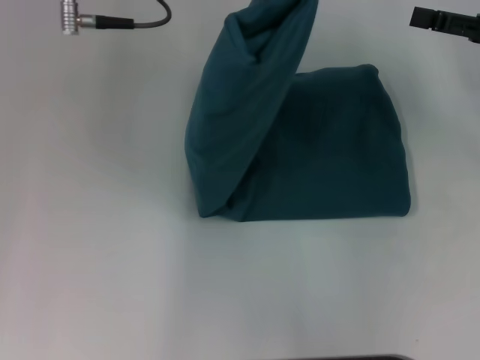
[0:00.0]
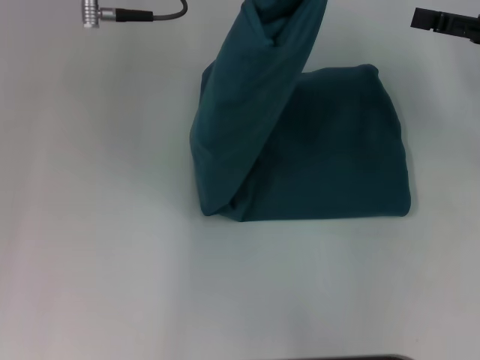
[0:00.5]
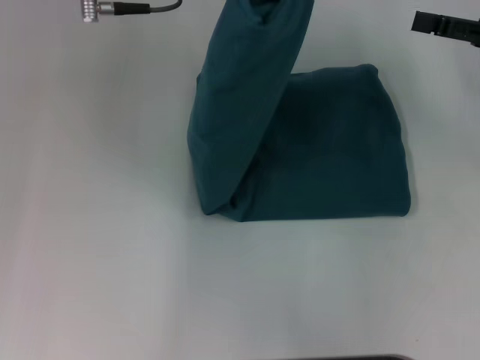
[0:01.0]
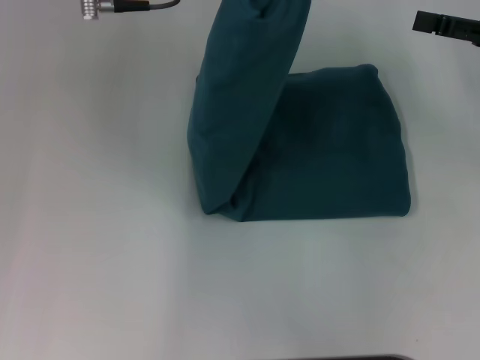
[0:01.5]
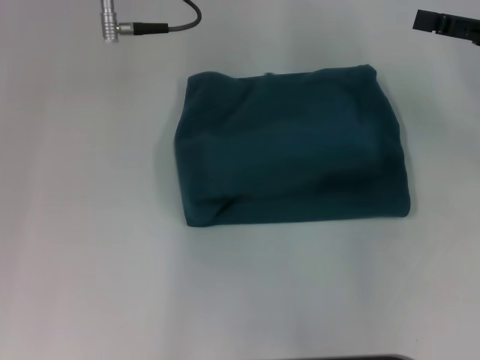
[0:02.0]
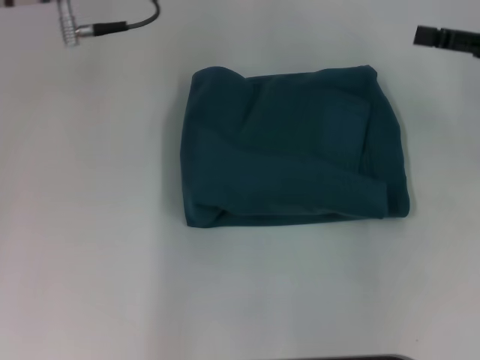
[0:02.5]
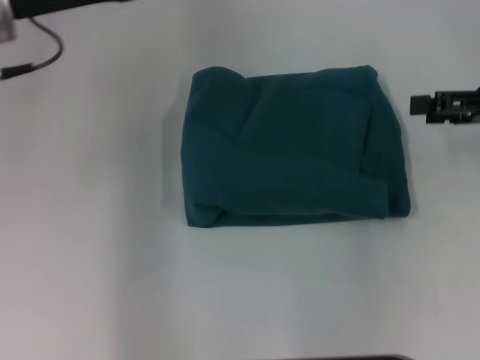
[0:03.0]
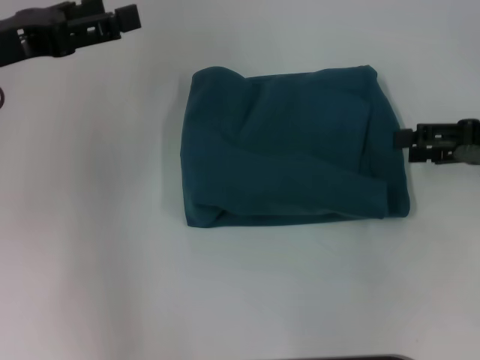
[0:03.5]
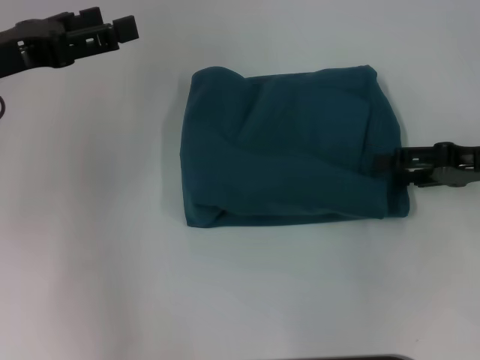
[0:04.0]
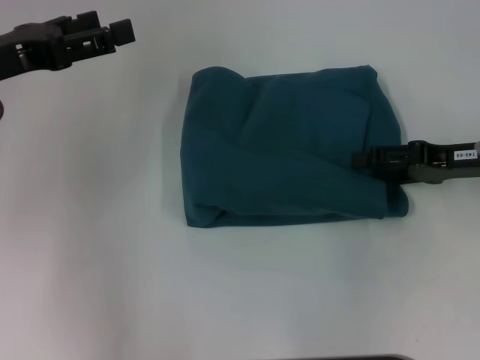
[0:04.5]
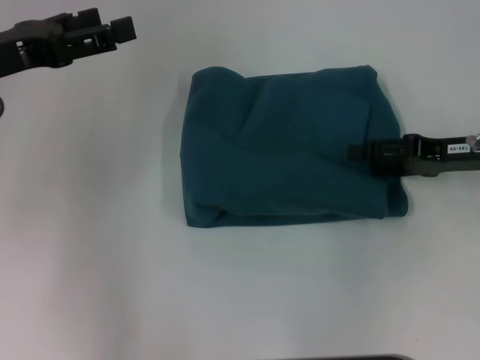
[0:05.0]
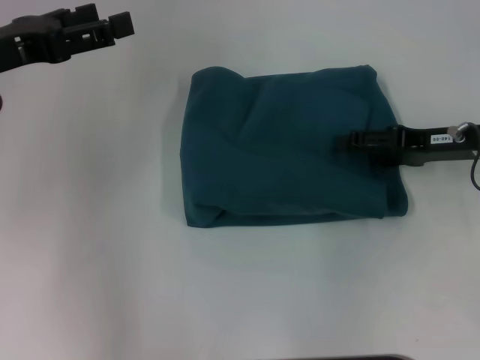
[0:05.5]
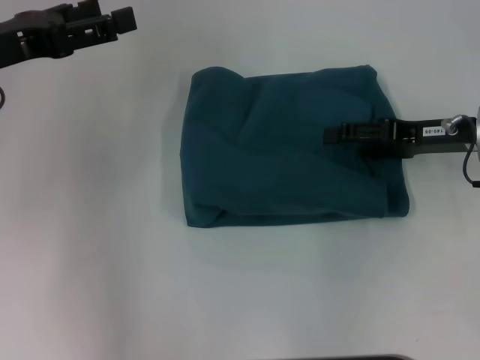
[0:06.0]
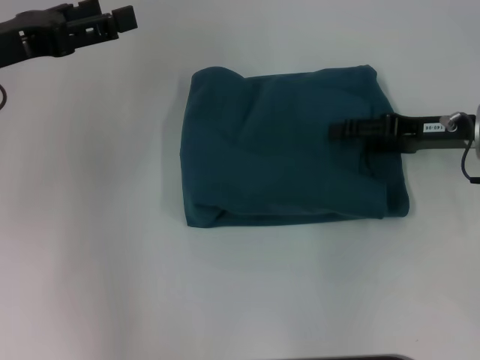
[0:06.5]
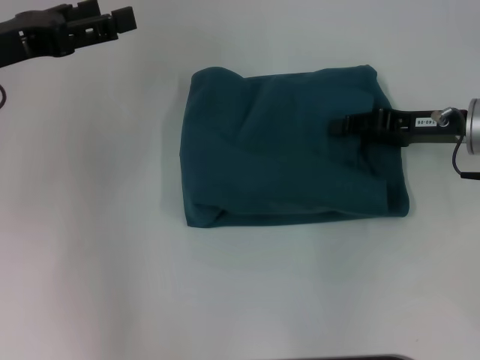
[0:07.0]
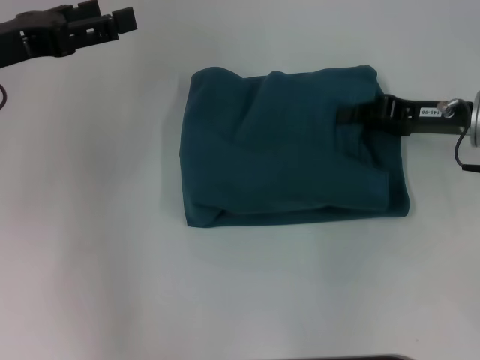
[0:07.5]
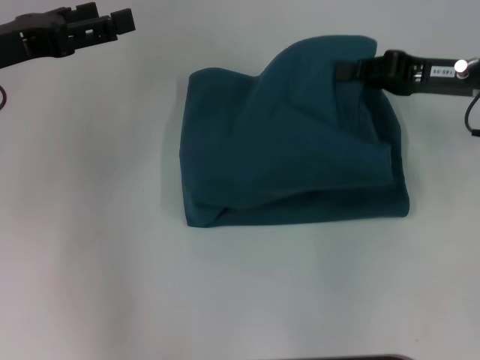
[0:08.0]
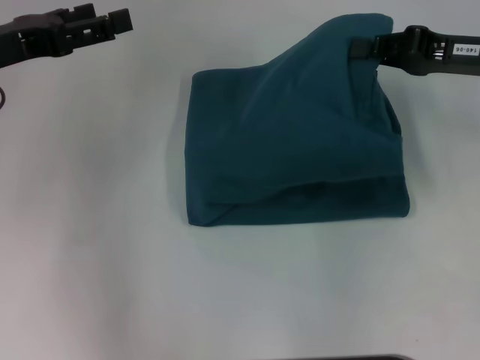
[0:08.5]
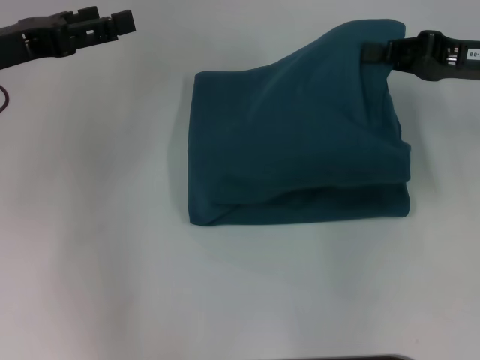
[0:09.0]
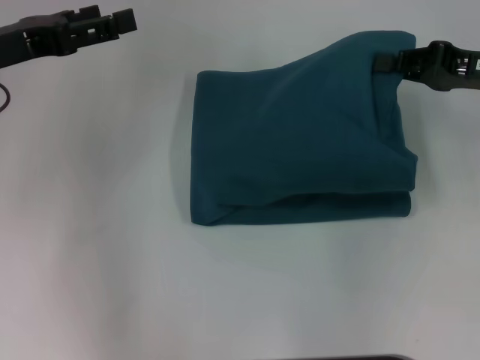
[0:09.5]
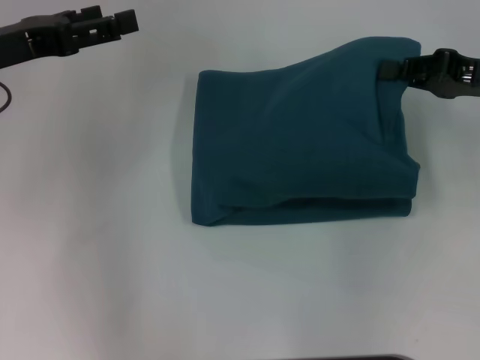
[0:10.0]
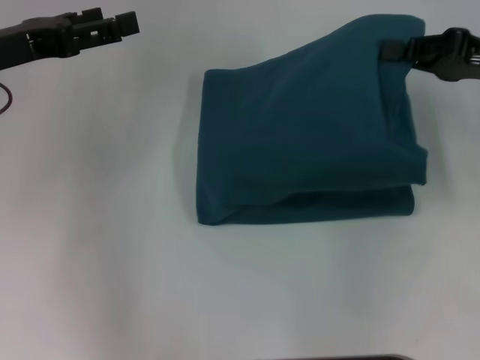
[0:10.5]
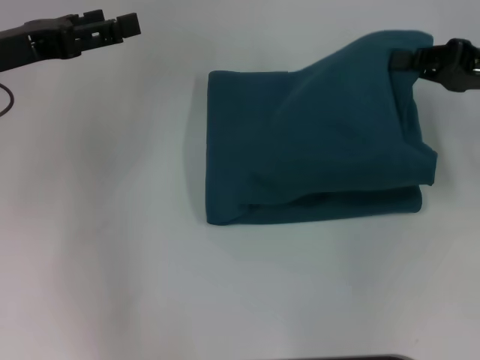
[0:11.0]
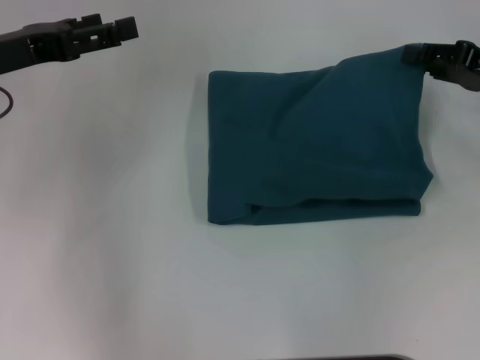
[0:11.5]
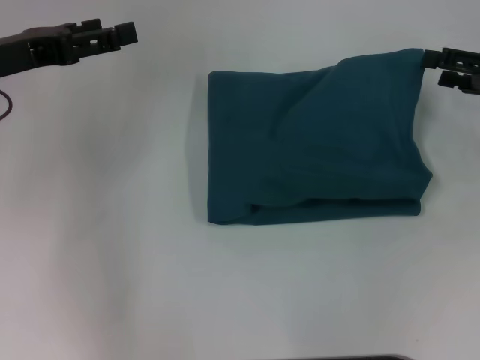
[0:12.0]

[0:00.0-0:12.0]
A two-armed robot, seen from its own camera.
Step, 0:00.0 to 0:02.0: Fold the clothes to the left.
0:00.0 to 0:02.0: The grippers make only small movements.
0:02.0 to 0:04.0: The right gripper moves downward, roughly 5 cm. Meanwhile the left gripper goes some 15 cm to the left and downward, and opens its fingers.
0:04.0 to 0:06.0: The right gripper ends up about 5 cm from where it was.
0:06.0 to 0:08.0: The right gripper closes.
0:08.0 to 0:10.0: The grippers make only small movements.
0:10.0 to 0:12.0: The right gripper opens up.

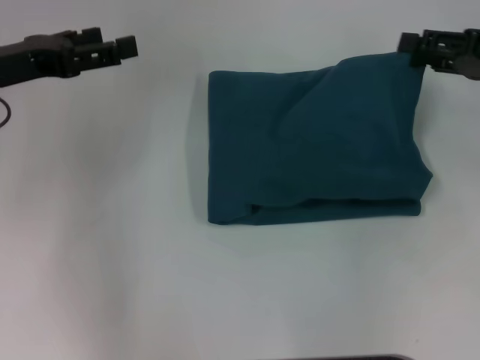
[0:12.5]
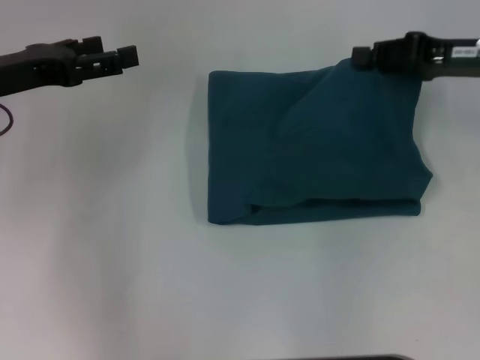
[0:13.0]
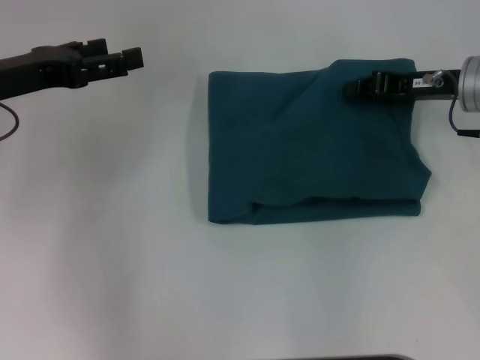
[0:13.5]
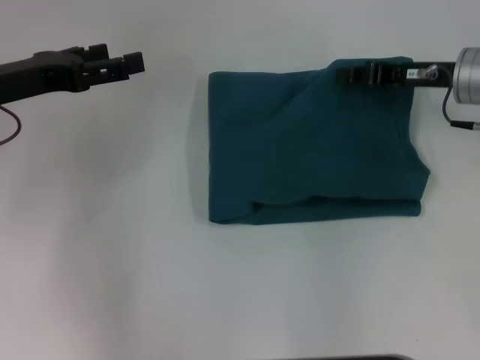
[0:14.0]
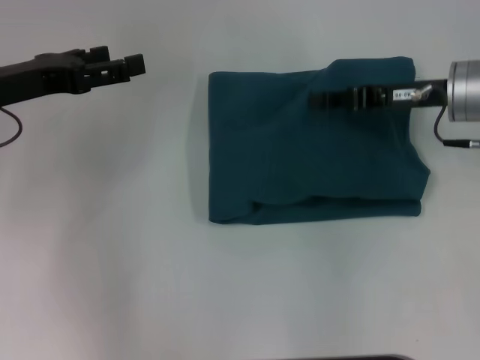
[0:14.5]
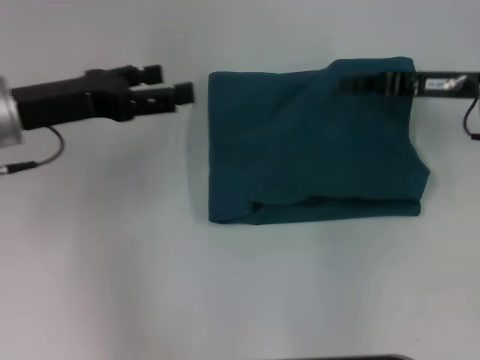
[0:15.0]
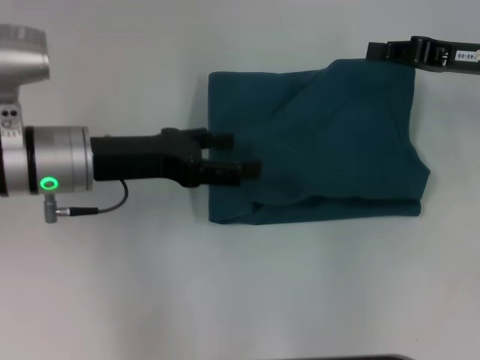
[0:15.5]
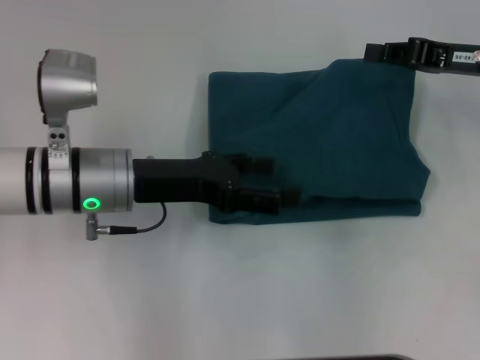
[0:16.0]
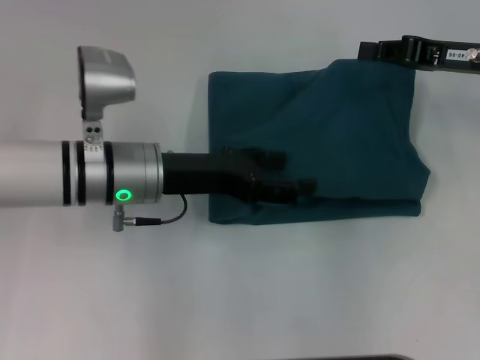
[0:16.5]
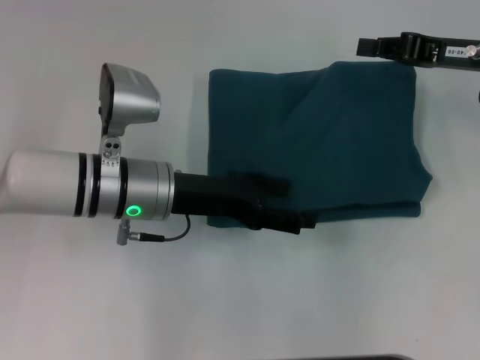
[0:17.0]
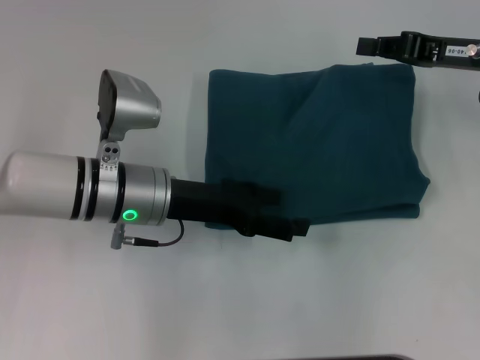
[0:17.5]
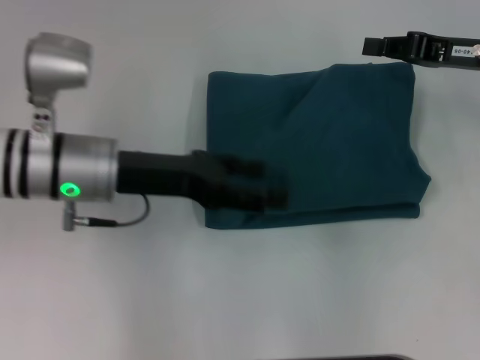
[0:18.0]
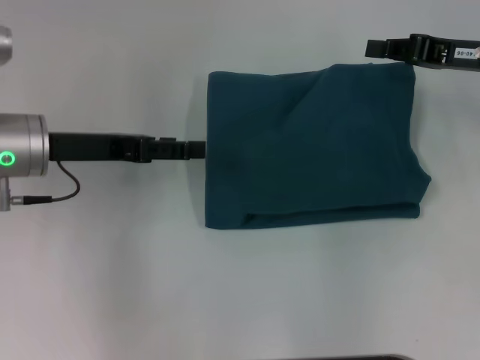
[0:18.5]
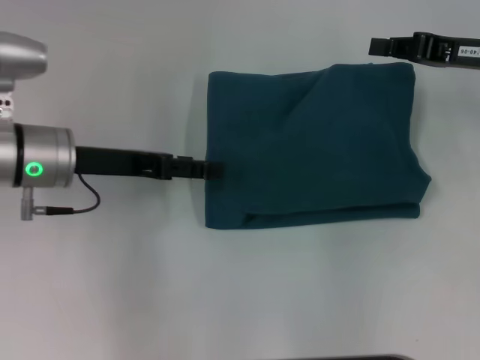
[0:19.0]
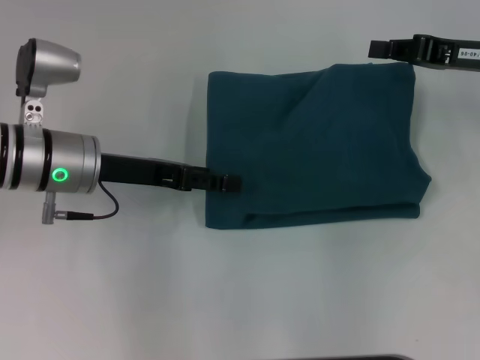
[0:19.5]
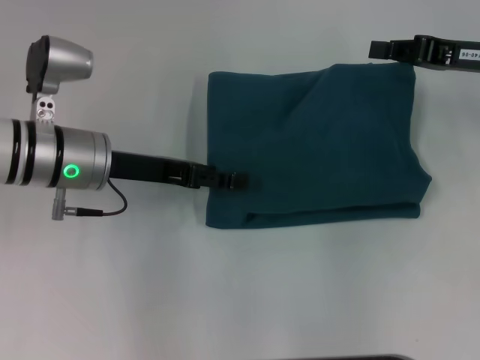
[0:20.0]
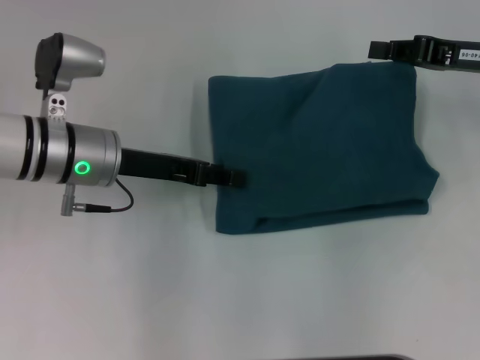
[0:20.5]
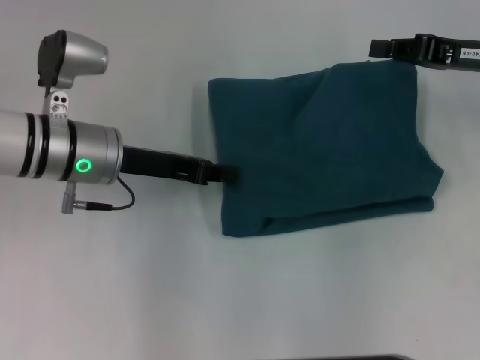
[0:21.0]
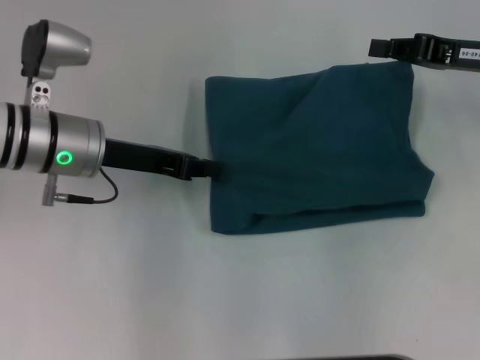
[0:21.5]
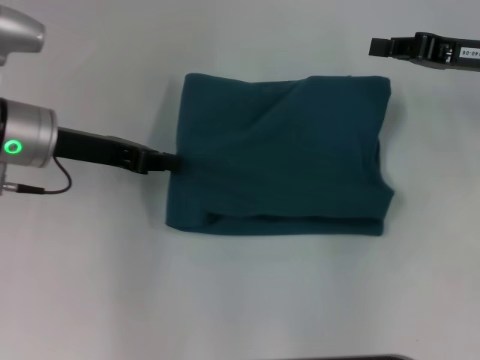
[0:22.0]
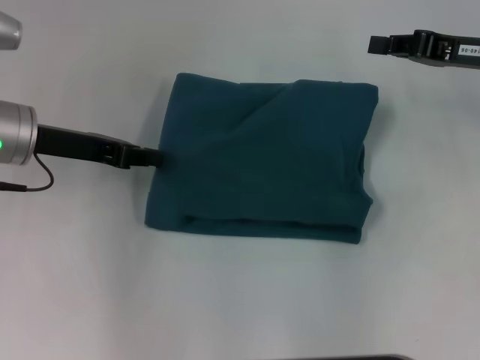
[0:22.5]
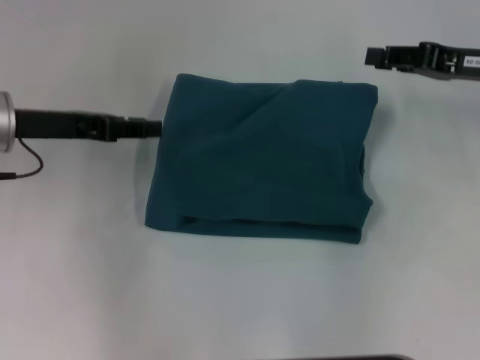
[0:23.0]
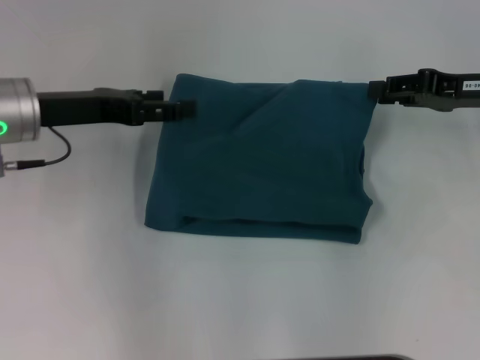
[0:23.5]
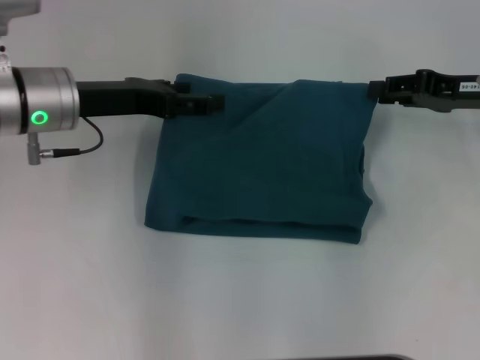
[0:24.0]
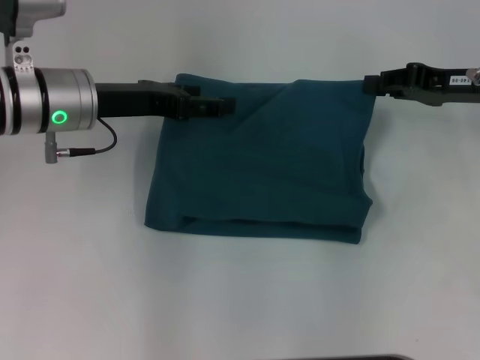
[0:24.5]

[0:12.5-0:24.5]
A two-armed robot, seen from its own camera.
0:12.5 to 0:14.5: The right gripper heads to the left, covering about 10 cm, and closes.
0:14.5 to 0:16.5: The left gripper travels to the right and downward by some 15 cm.
0:16.5 to 0:18.5: The left gripper shifts roughly 10 cm to the left.
0:18.5 to 0:20.5: The left gripper goes about 5 cm to the right.
0:20.5 to 0:22.5: The left gripper moves to the left, roughly 5 cm, and closes.
0:22.5 to 0:24.5: The left gripper shifts about 5 cm to the right, and opens its fingers.

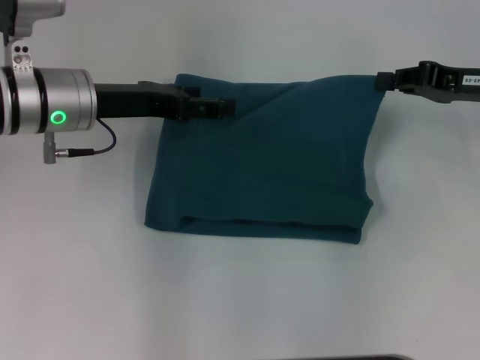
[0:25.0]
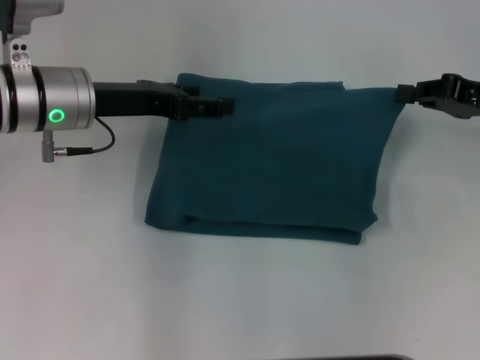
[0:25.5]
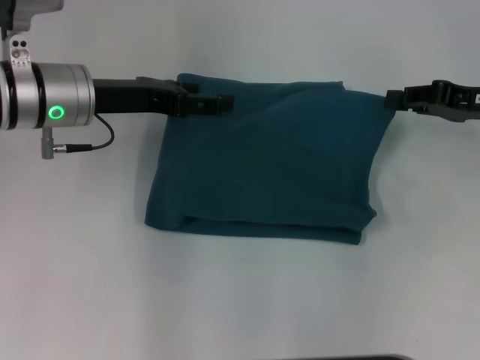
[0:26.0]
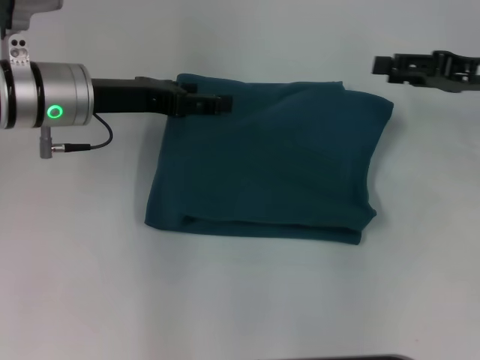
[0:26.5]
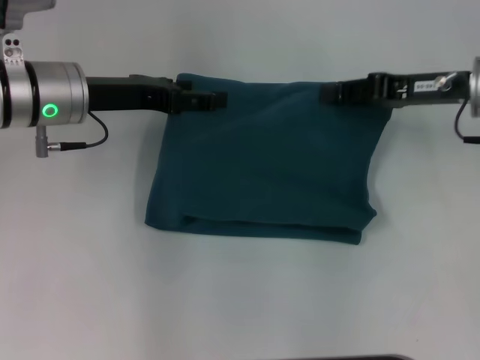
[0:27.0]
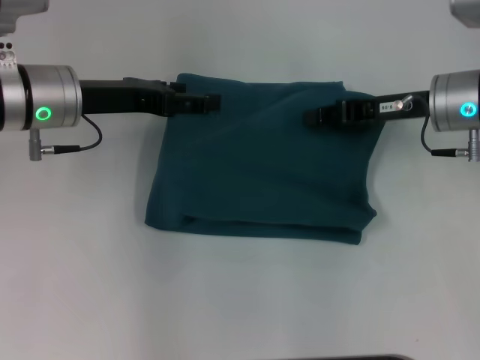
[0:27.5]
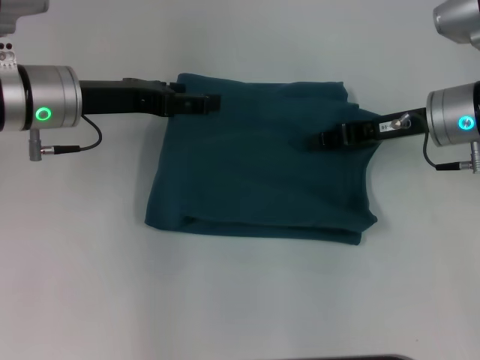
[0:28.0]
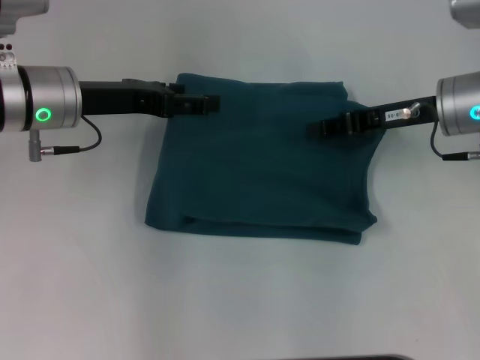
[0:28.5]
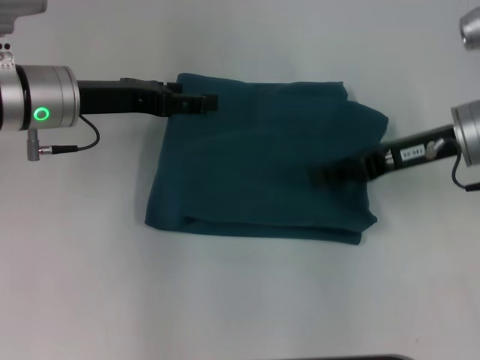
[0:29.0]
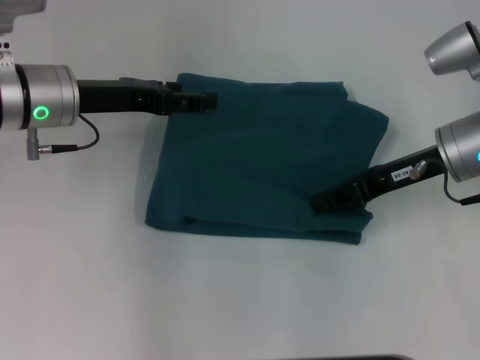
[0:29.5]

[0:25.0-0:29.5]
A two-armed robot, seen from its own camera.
0:25.0 to 0:27.0: The right gripper opens.
0:27.0 to 0:29.5: The right gripper closes its fingers.
